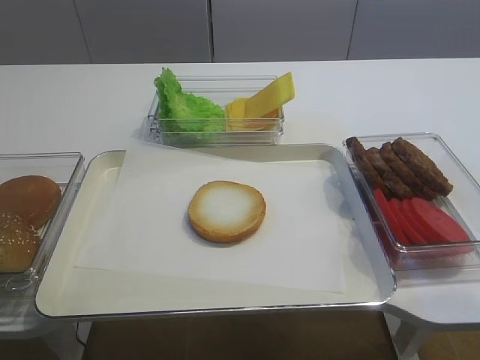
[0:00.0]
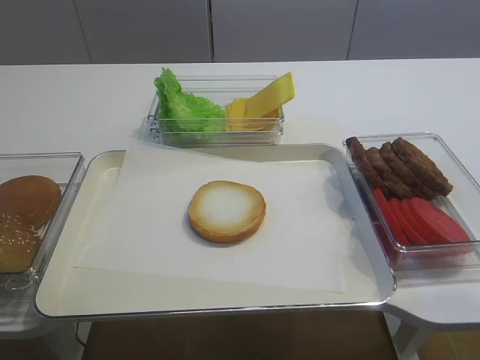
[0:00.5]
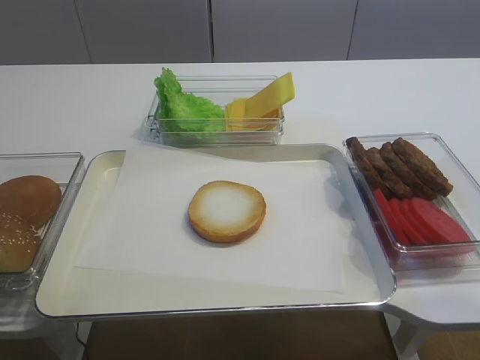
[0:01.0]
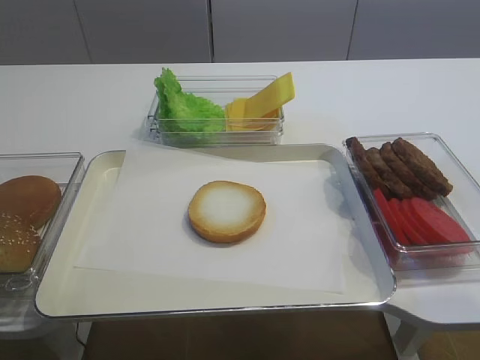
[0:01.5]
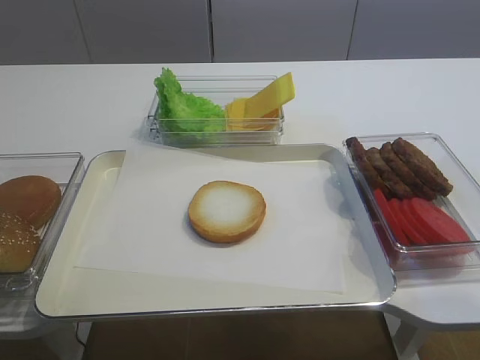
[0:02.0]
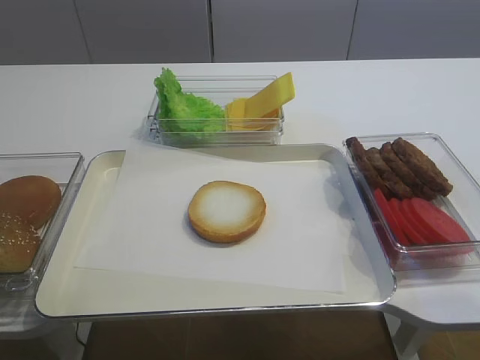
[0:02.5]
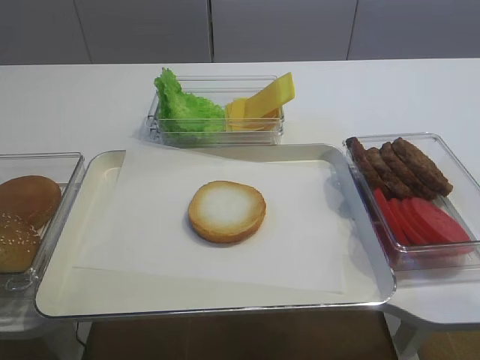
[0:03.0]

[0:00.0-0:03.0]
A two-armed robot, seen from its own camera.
0:01.5 to 0:03.0: Neither gripper changes place.
